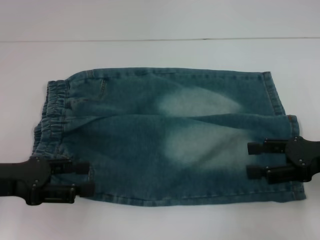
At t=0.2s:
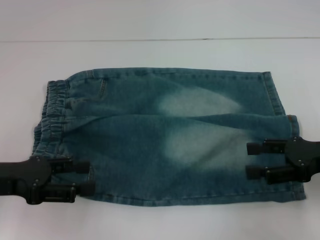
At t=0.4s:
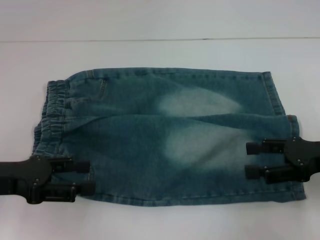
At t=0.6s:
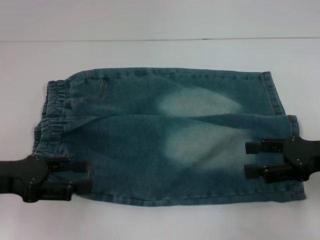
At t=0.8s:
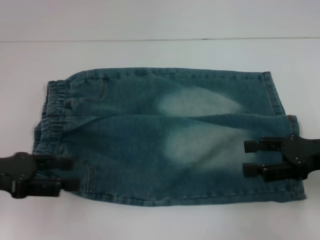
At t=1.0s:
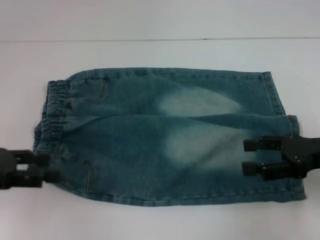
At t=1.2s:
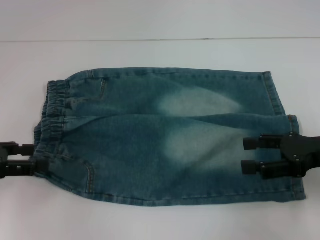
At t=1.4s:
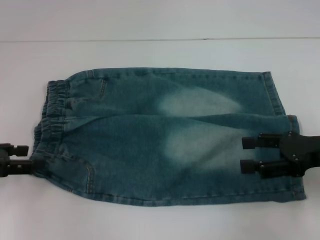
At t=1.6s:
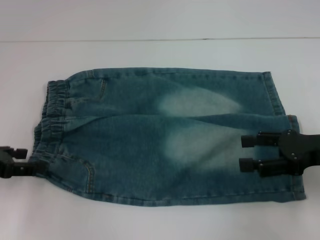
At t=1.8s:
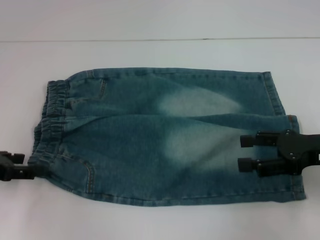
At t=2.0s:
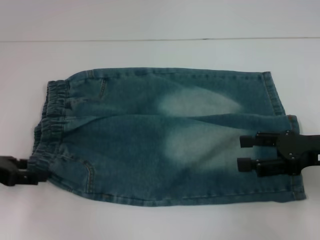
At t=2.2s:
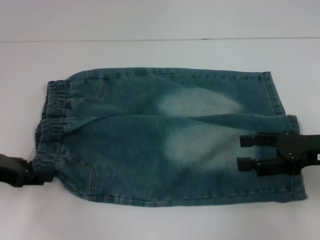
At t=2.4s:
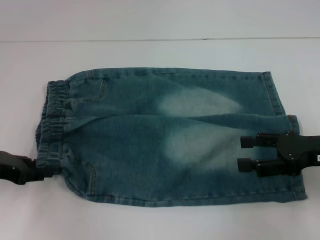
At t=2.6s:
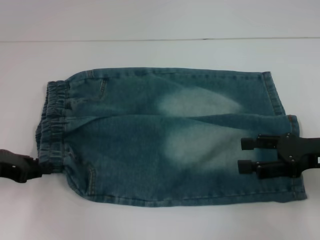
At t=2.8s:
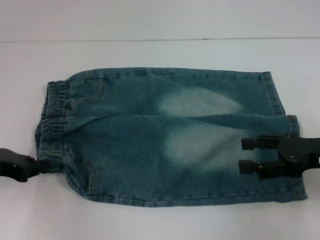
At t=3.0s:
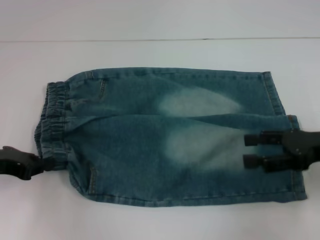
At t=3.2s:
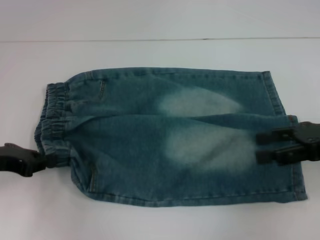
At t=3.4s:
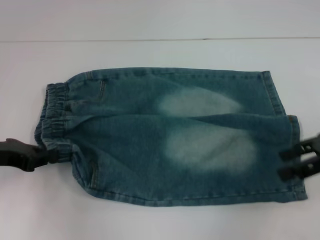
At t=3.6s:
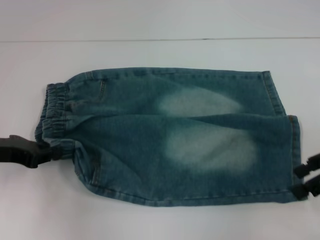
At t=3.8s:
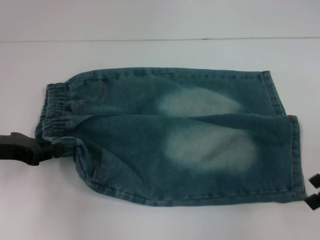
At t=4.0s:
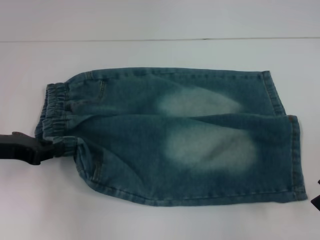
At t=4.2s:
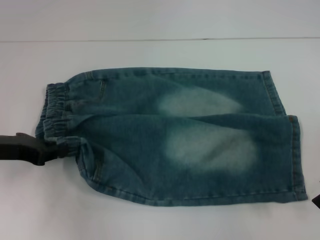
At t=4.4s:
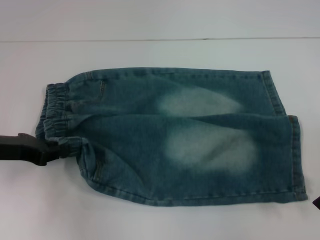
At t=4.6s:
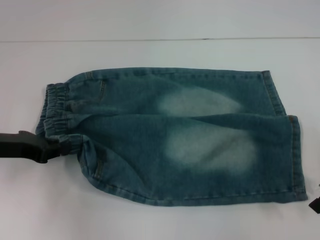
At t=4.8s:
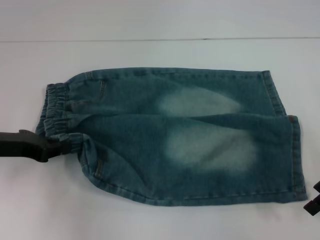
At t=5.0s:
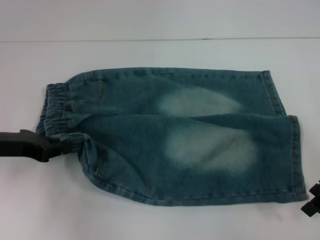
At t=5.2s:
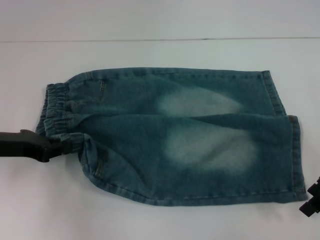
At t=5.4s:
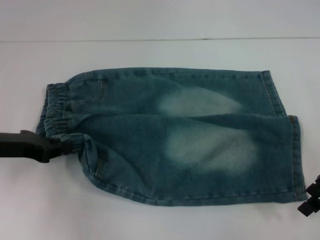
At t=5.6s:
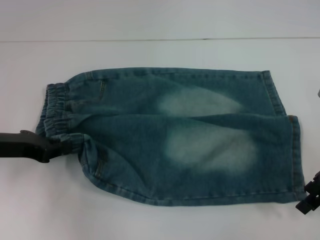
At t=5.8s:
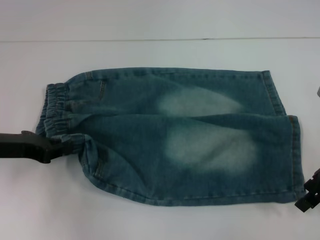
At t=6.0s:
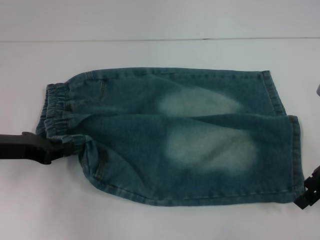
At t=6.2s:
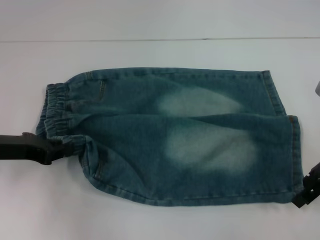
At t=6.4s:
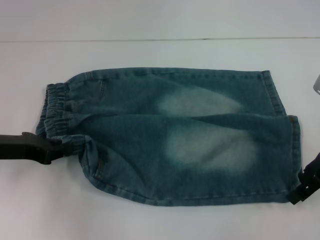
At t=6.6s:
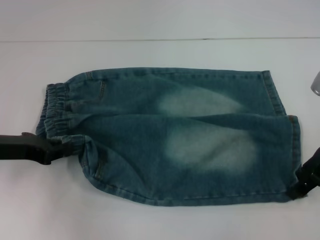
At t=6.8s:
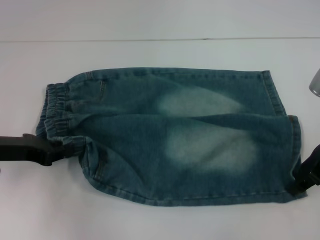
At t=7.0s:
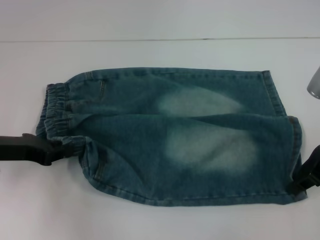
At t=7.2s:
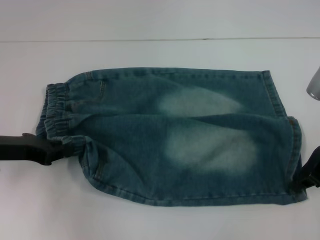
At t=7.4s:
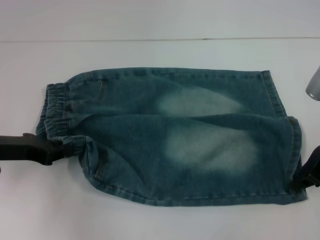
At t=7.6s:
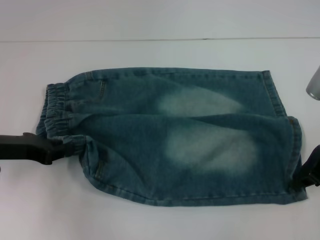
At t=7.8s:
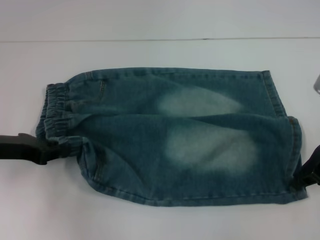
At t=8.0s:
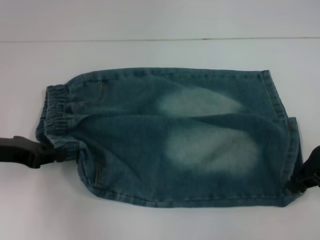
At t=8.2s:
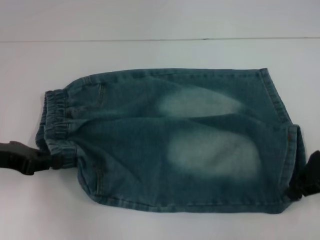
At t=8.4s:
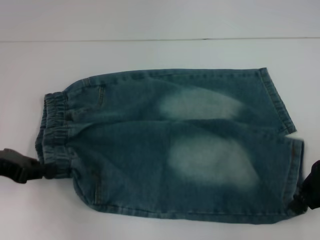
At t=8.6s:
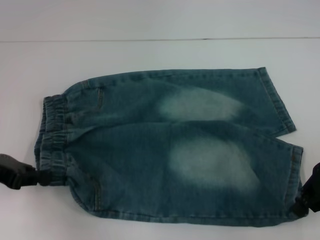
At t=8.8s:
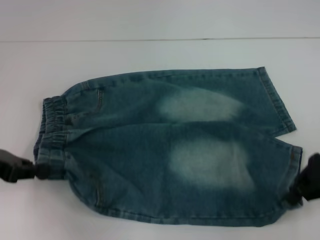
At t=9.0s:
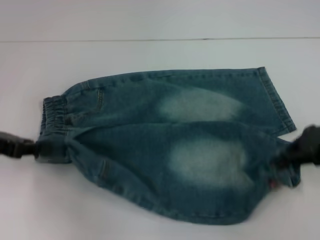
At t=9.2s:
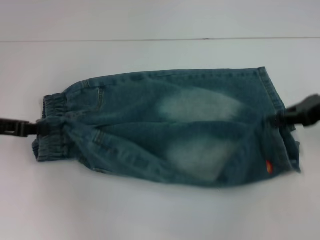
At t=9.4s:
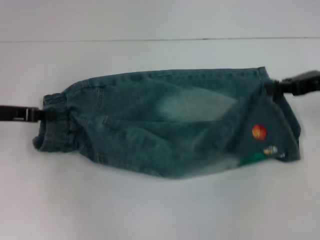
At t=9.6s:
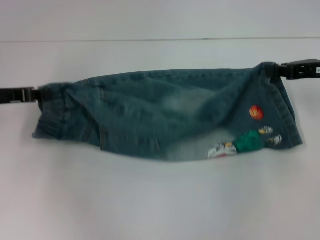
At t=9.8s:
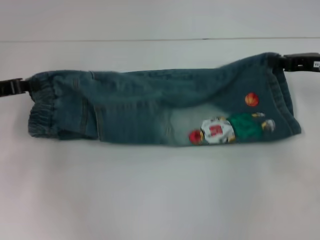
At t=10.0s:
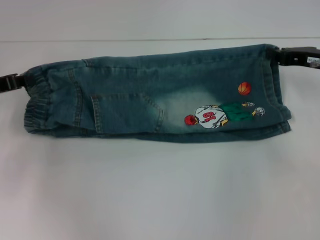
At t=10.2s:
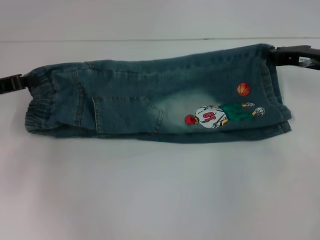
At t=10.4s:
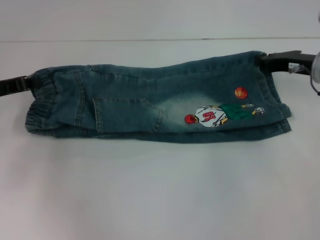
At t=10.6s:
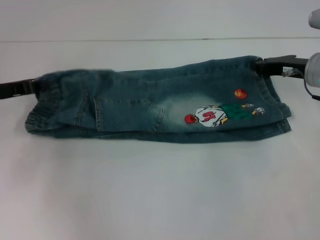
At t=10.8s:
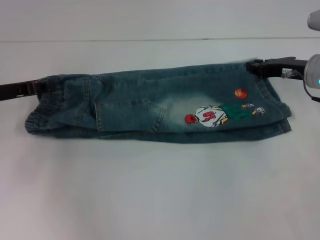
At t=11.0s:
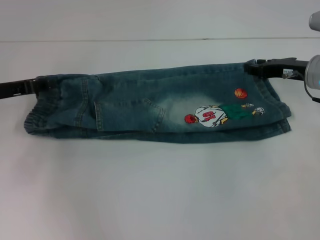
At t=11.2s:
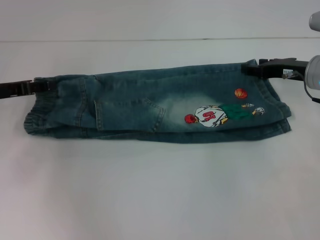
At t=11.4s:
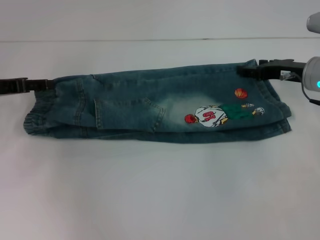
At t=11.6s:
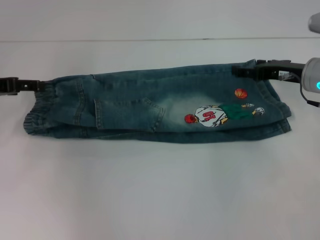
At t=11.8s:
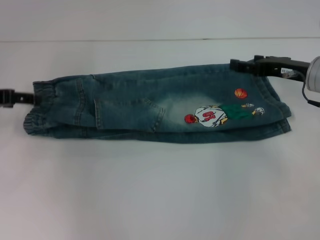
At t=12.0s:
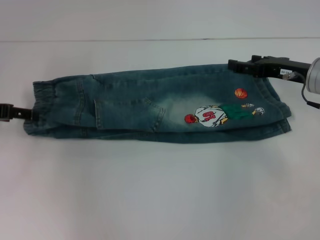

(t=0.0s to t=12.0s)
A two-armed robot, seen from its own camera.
Step, t=0.0s - t=3.2s: Hold the lower left waistband with your left hand.
Step, t=3.6s - t=7.8s: Grab the lower right pant leg with your right hand.
Step, t=8.0s - t=11.0s: Fold upward with your right hand.
t=0.0s - t=1.6s: The left gripper shifts by some 5 cm.
t=1.6s - t=3.0s: The left gripper closes up.
t=3.0s - t=4.4s: The right gripper moves some 5 cm.
t=4.4s - t=6.0s: The grippers stay close to where they were, moving slightly.
t=6.0s - t=7.6s: The right gripper closes.
t=7.6s - t=9.0s: The left gripper changes place by some 5 cm.
t=9.0s - t=10.4s: The right gripper shifts approximately 10 cm forward and downward. The left gripper goes roughly 5 cm forward.
t=10.4s - t=12.0s: The left gripper opens; the right gripper opens its fingers.

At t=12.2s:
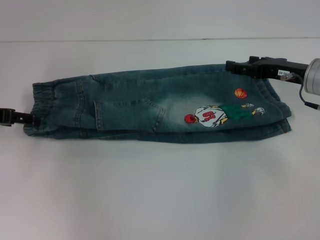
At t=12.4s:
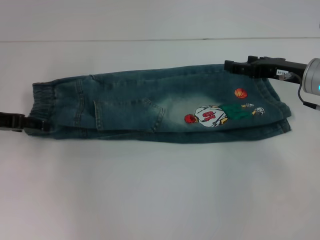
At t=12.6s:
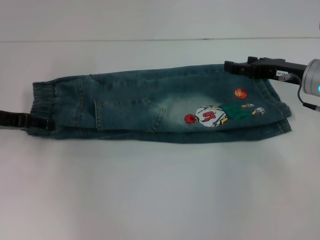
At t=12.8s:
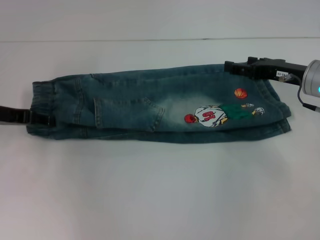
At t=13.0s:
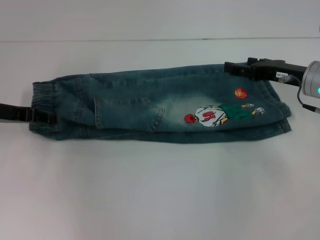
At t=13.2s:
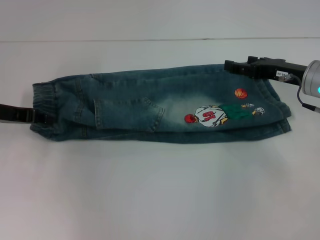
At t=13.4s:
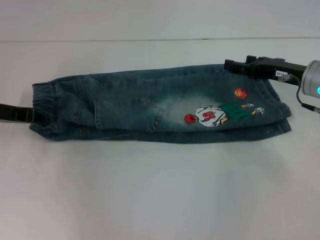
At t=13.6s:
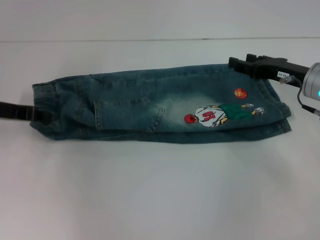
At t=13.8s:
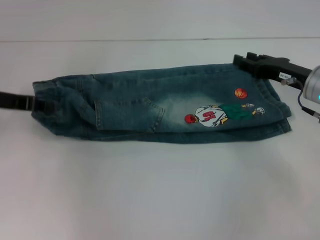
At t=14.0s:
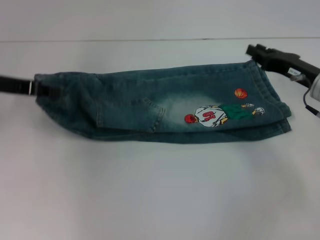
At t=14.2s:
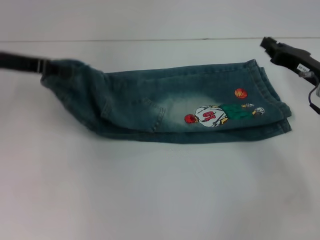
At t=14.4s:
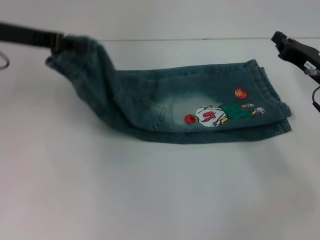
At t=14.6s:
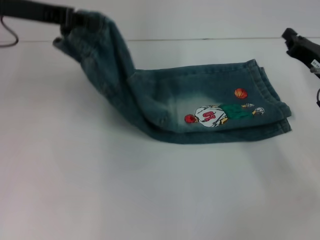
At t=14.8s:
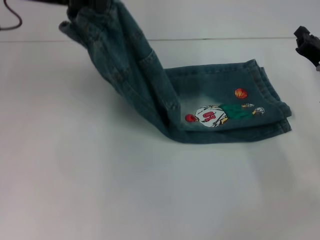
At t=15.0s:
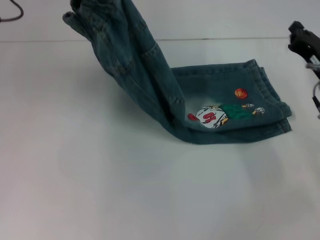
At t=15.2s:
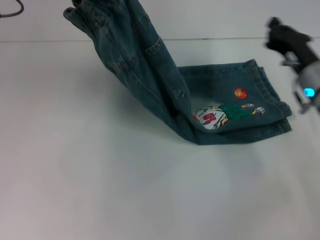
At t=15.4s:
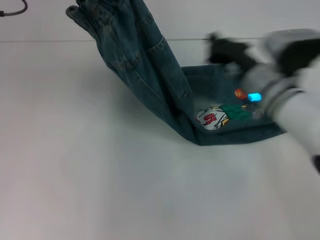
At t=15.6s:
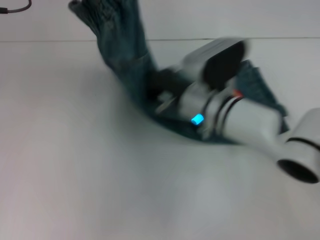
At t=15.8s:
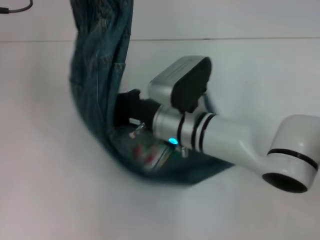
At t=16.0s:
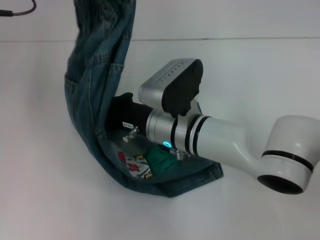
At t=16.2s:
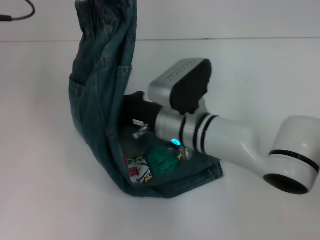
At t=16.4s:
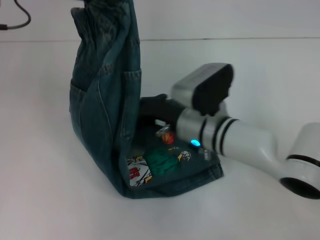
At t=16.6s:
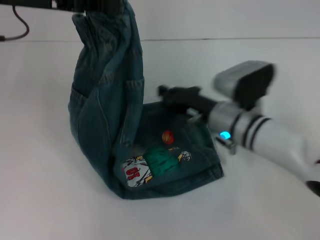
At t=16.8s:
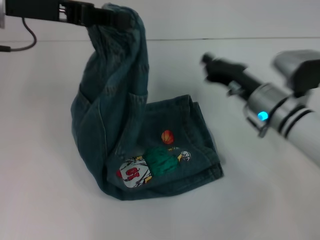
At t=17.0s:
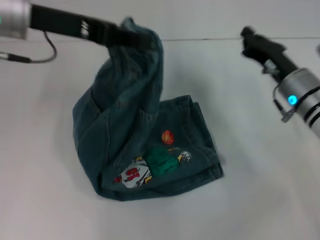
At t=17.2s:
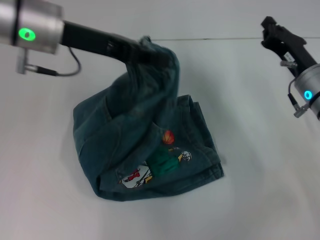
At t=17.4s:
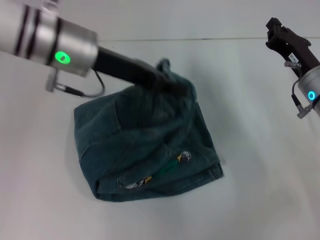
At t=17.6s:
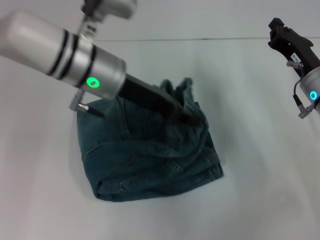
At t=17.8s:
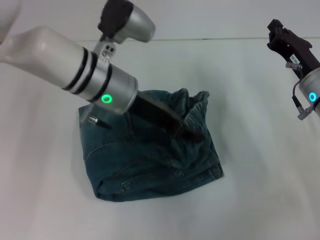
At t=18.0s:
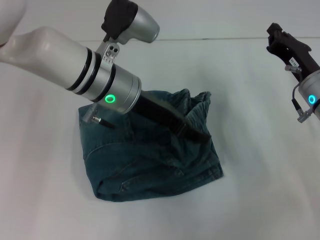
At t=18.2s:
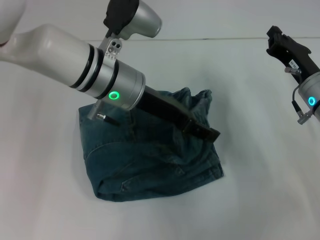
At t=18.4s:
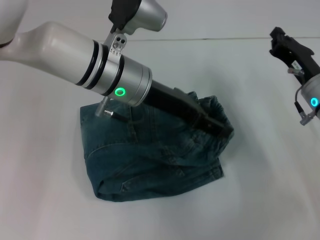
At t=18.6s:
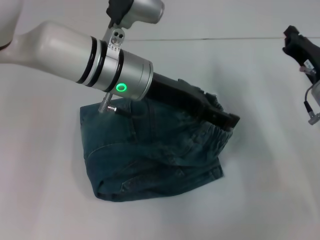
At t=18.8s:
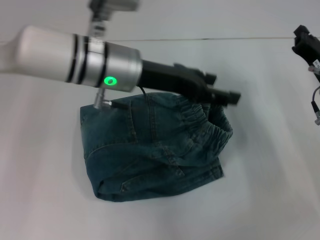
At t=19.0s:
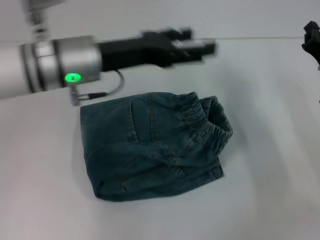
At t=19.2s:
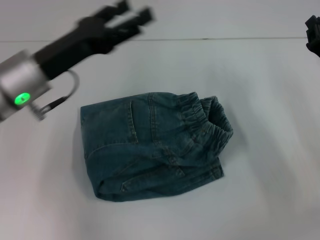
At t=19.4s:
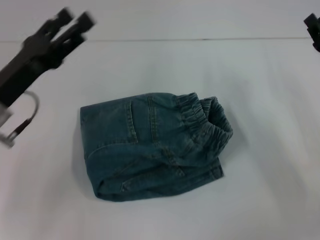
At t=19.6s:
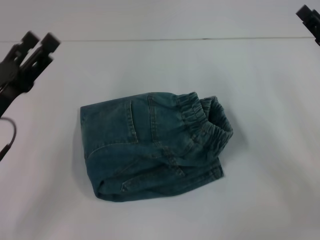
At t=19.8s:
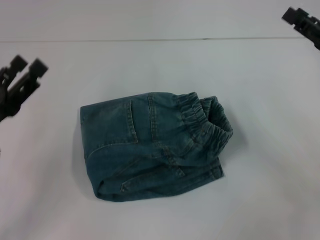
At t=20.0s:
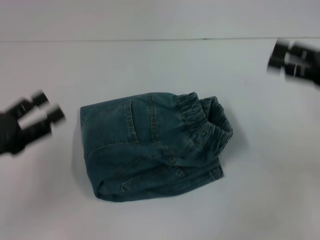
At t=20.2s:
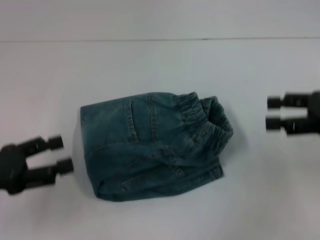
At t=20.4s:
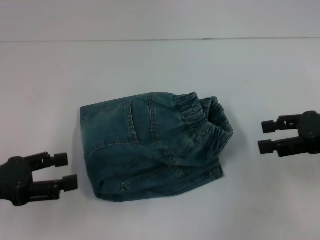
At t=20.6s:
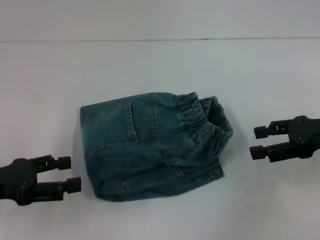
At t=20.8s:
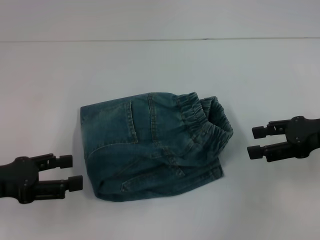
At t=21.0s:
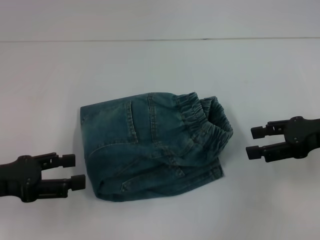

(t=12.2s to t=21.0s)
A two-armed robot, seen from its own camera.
Step, t=12.2s - t=13.4s: Hold the waistband with your left hand.
Step, t=13.8s - t=16.0s: Press the middle of the pants with your right hand.
Step, t=16.2s - t=18.4s: Fold to the right with your left hand.
t=12.2s - t=13.6s: The left gripper closes its fingers.
t=13.6s - t=15.2s: The left gripper shifts about 15 cm upward and to the right. The right gripper closes its fingers.
t=15.2s - t=16.6s: The right gripper travels to the left by some 10 cm.
t=16.6s - t=18.0s: The right gripper shifts about 10 cm to the right. Meanwhile the left gripper heads to the right and downward, covering approximately 20 cm.
t=18.0s - t=19.6s: The right gripper goes approximately 5 cm to the right. Meanwhile the left gripper heads to the left and backward, covering some 20 cm, and opens its fingers.
t=19.6s - t=21.0s: The right gripper opens its fingers. The left gripper ends up approximately 5 cm from where it was.
